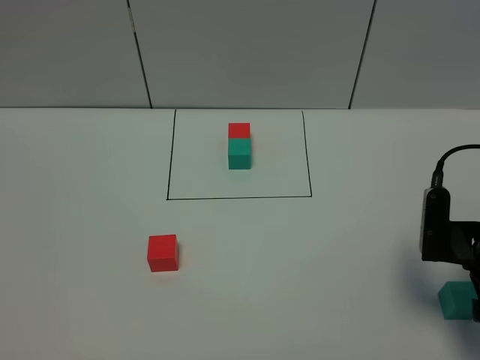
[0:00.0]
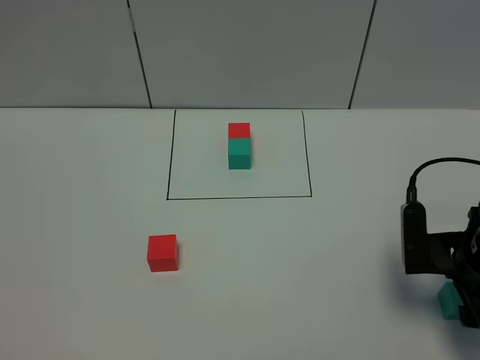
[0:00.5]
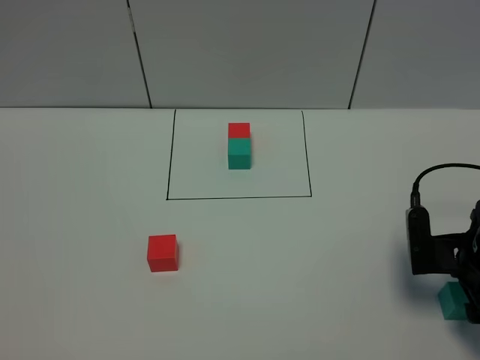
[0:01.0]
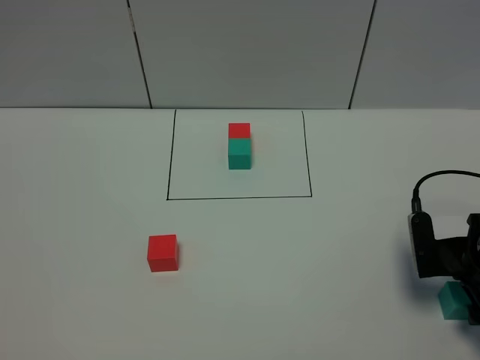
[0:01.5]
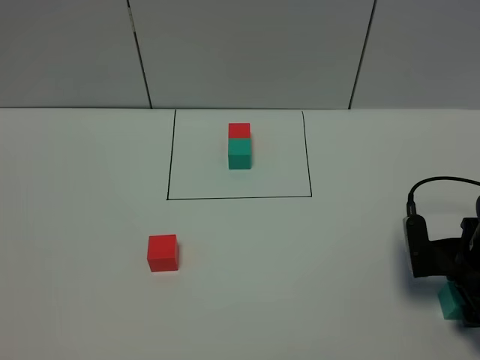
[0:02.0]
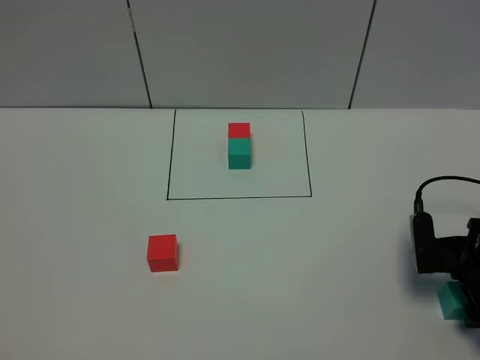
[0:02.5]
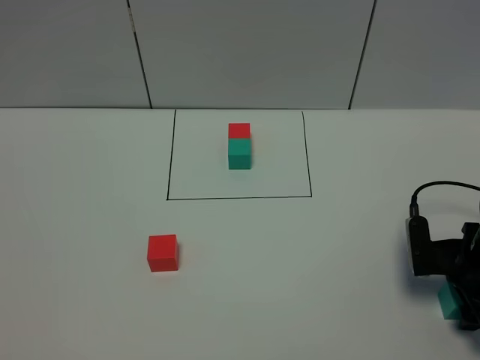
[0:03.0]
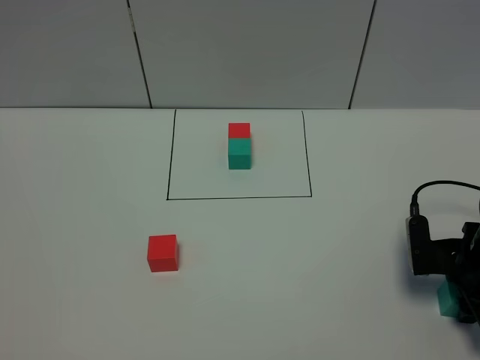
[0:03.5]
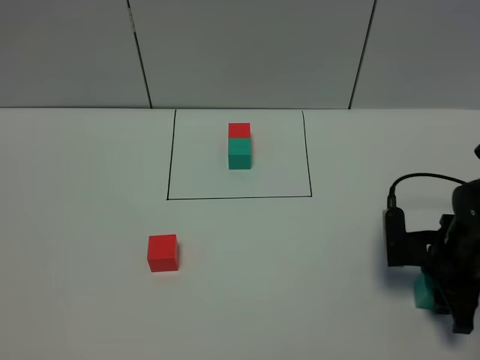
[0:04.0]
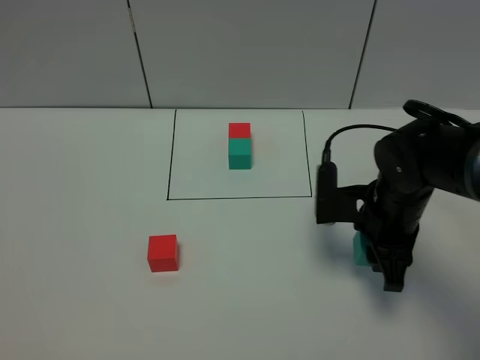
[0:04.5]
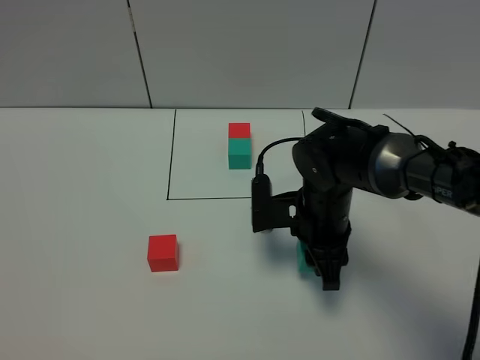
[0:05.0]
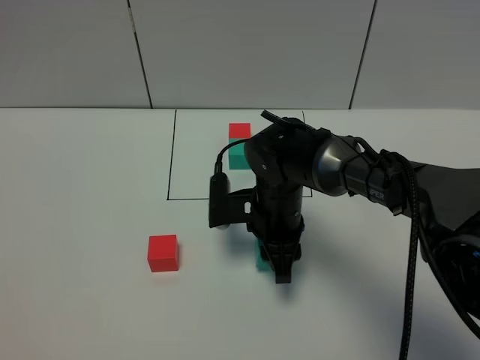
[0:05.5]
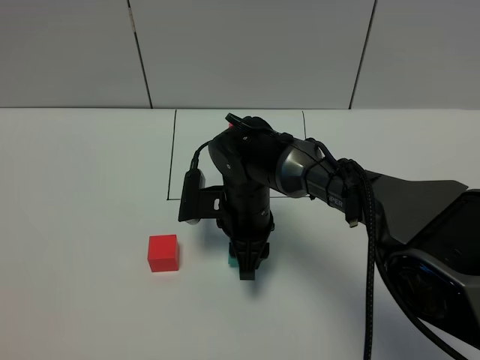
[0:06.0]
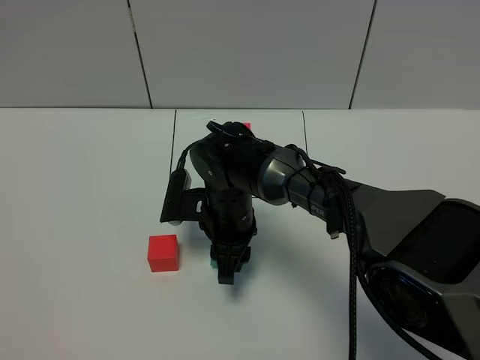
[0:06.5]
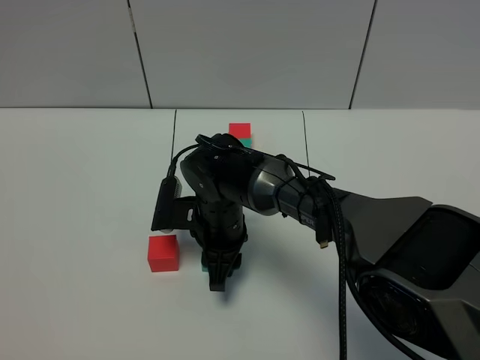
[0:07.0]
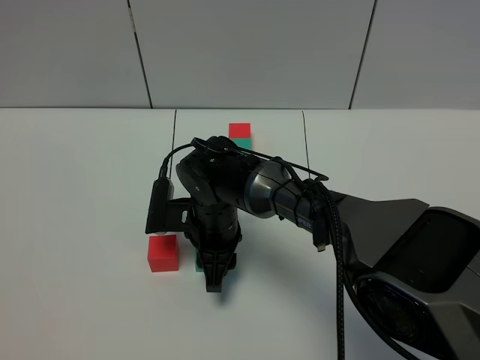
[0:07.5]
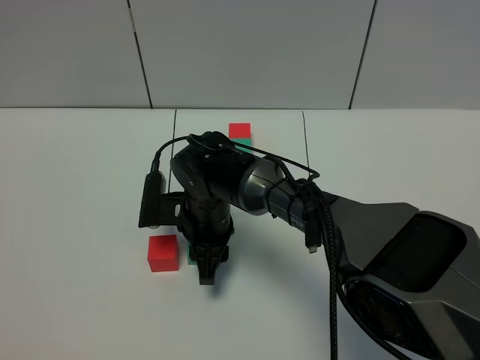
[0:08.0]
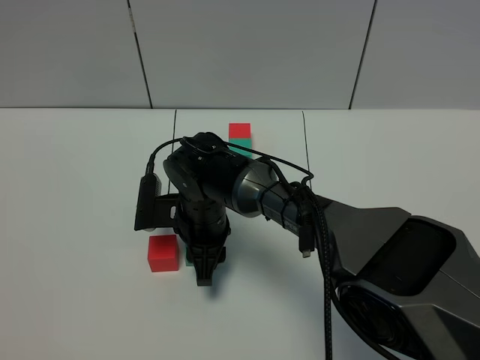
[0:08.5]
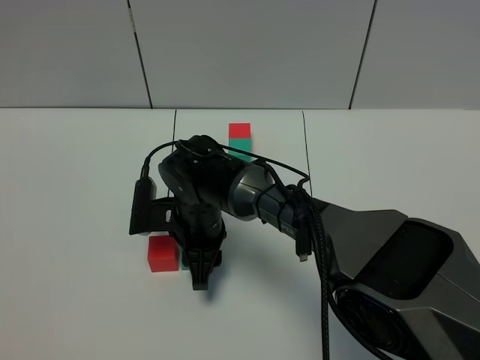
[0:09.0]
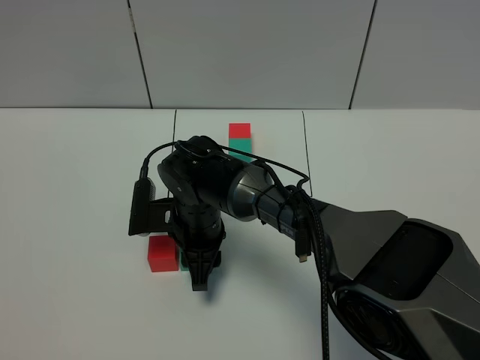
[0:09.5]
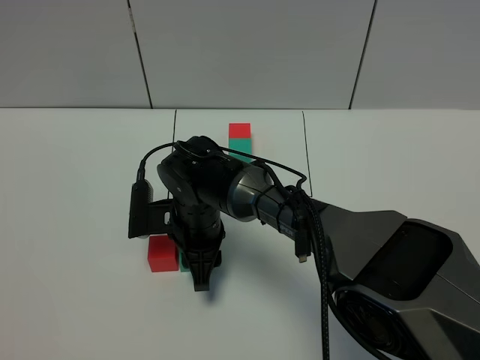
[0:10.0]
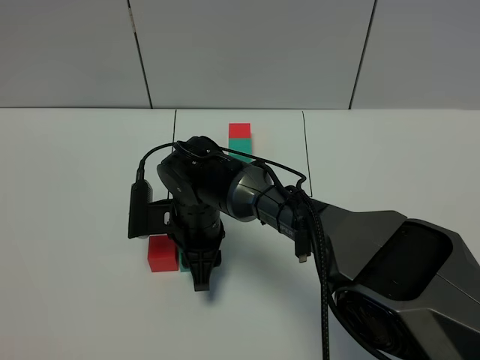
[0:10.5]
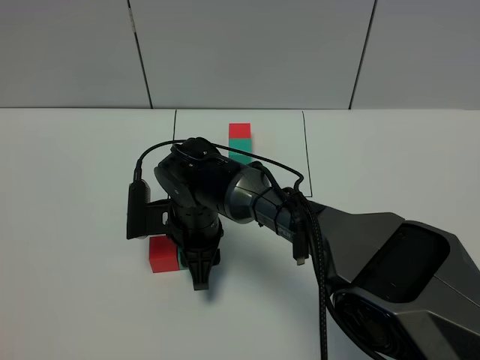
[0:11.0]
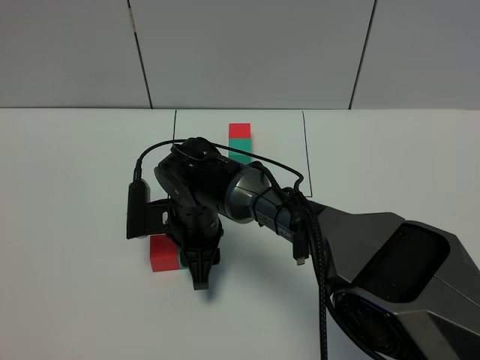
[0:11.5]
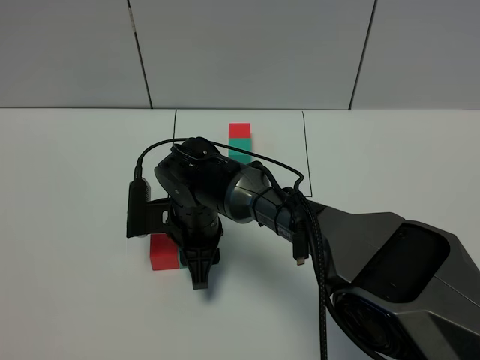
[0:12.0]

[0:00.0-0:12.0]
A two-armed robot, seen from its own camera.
Task of the whole recording: According to the building block template in front, assemble the scattered blocks together.
0:00.0 to 0:02.0: The right gripper shifts roughly 10 cm downward.
0:02.0 to 0:04.0: The right gripper closes.
0:04.0 to 0:06.0: The right gripper heads to the left, covering some 25 cm.
0:06.0 to 0:08.0: The right gripper moves to the left, roughly 5 cm.
0:08.0 to 0:10.0: The grippers make only small movements.
0:10.0 to 0:12.0: The two grippers keep their place.

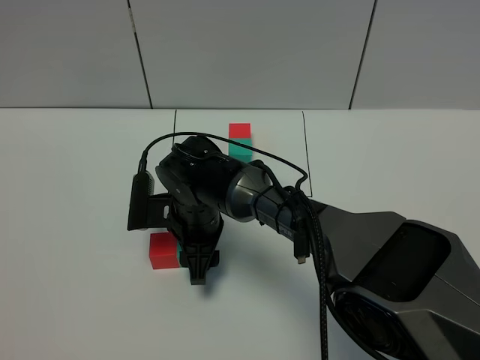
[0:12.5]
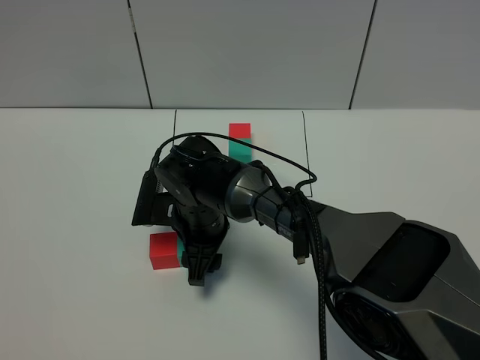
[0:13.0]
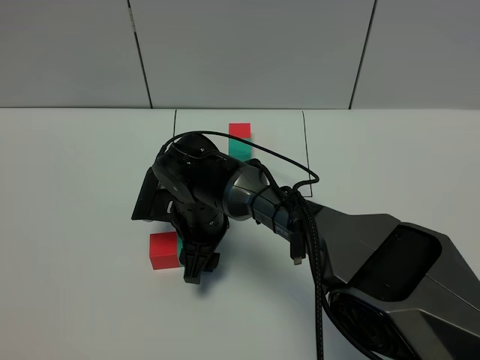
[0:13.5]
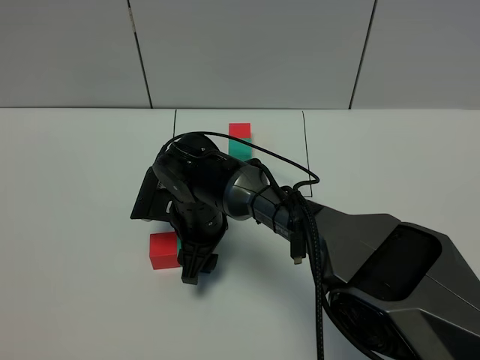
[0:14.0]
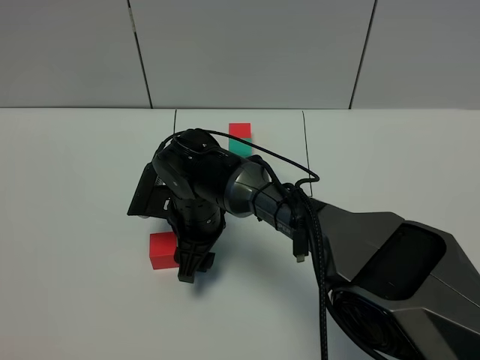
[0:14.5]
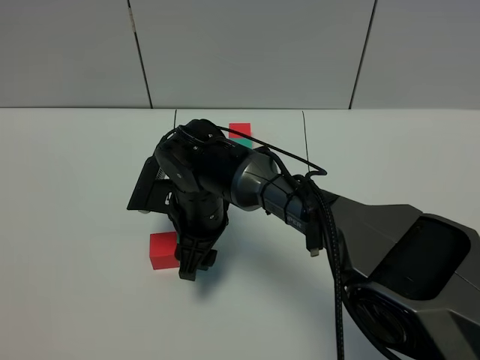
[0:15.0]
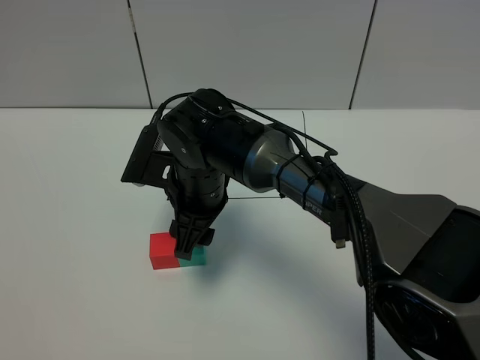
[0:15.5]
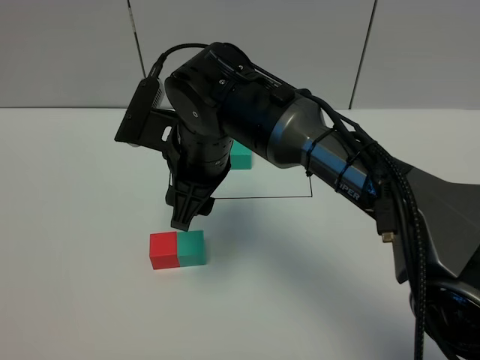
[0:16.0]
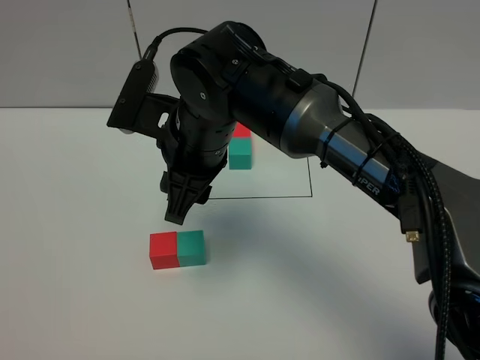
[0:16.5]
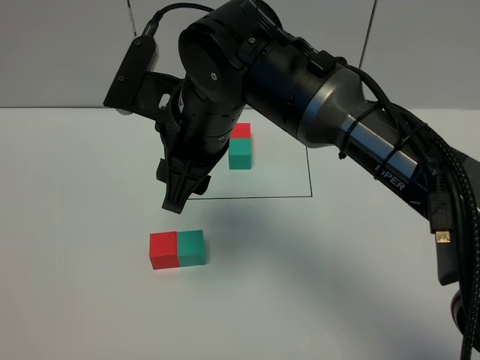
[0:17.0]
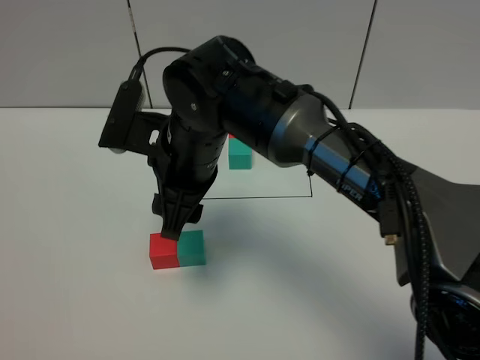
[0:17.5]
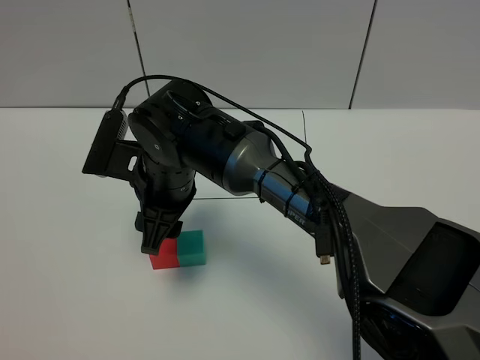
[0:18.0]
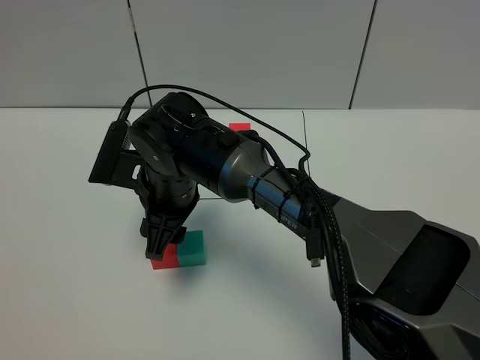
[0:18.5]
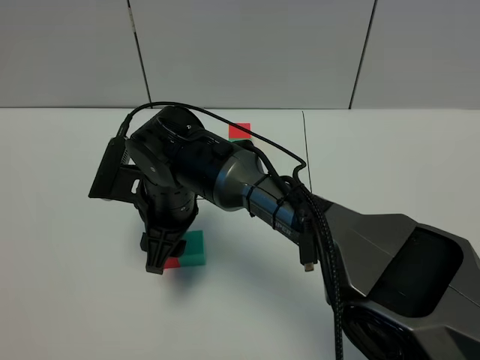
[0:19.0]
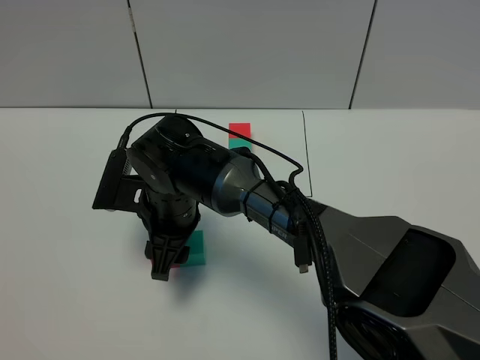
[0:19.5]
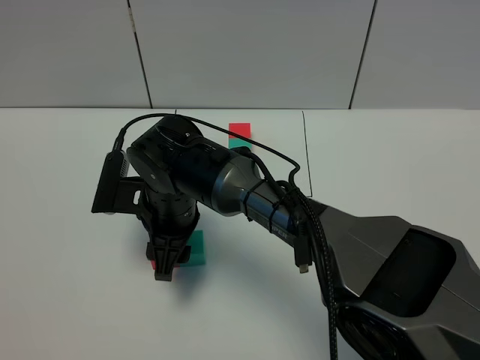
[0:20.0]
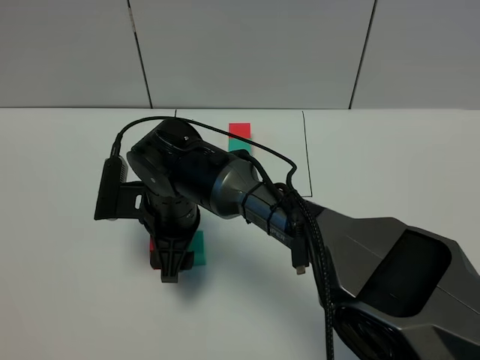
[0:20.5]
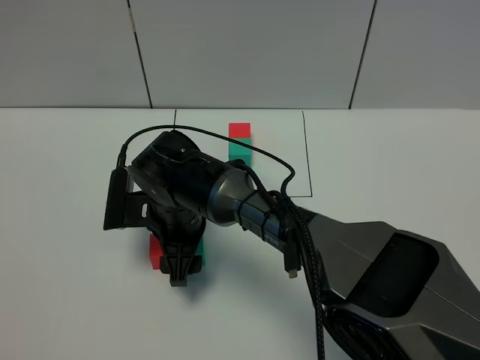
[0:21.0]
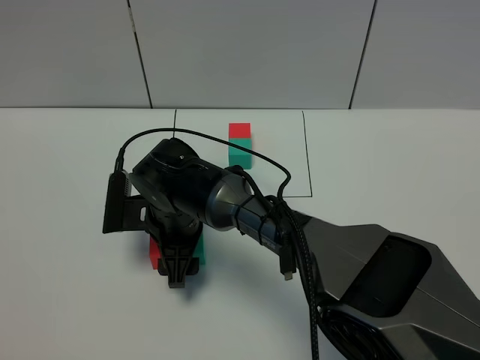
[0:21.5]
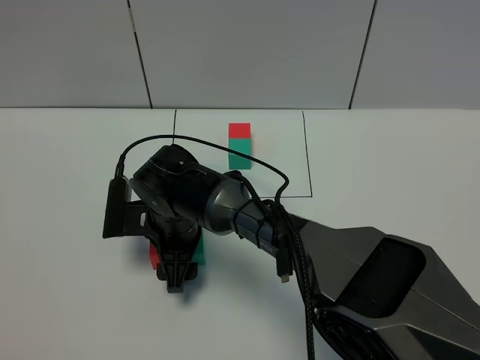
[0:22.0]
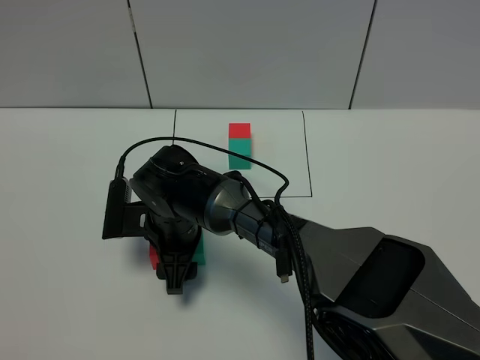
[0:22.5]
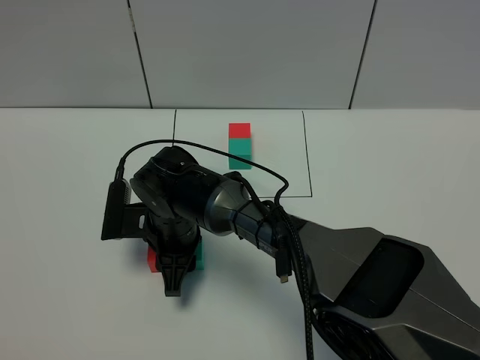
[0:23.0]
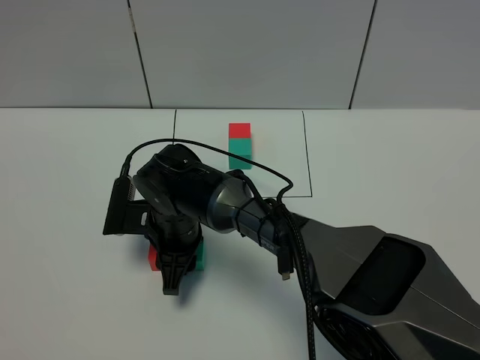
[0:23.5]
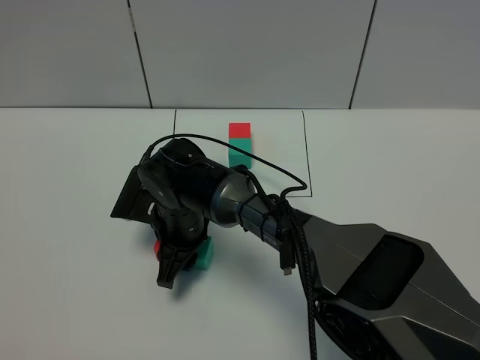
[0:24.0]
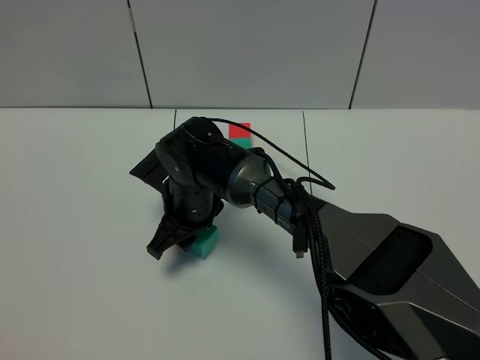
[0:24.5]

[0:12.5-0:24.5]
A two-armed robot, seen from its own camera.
Task of the whole recording: According to the building block template in front, assemble the scattered blocks together.
Step, 0:12.5 to 0:14.5: Put the green cube on the right of the red cube.
0:12.5 to 0:14.5: The grippers stay close to where they were, moving slightly.
0:14.5 to 0:16.5: The right gripper goes roughly 15 cm upward, and closes its fingers.
0:16.5 to 0:18.5: The right gripper travels downward by about 10 cm.
0:18.5 to 0:20.5: The right gripper opens.
0:20.5 to 0:22.5: The grippers make only small movements.
0:22.5 to 0:24.5: The right gripper closes up.

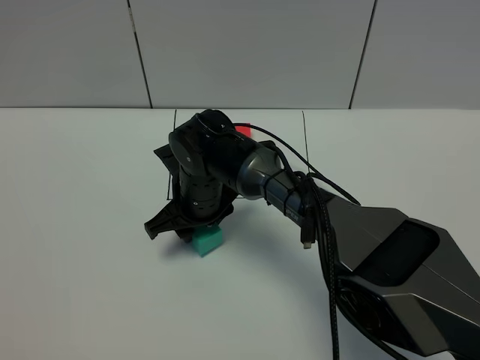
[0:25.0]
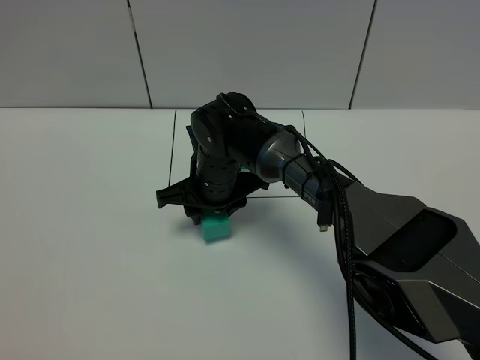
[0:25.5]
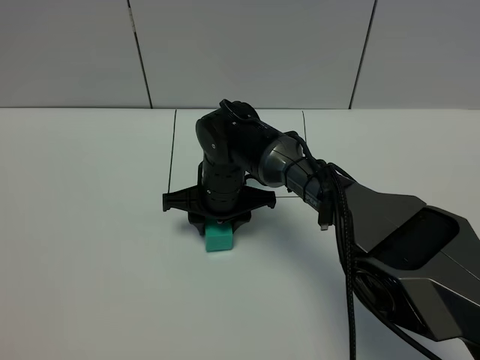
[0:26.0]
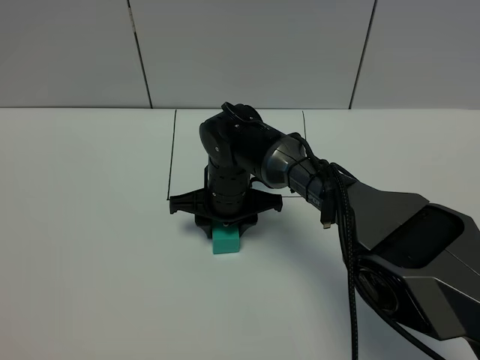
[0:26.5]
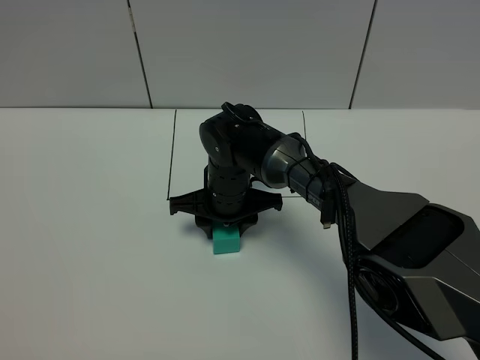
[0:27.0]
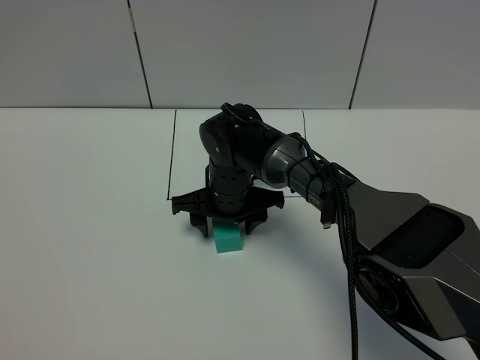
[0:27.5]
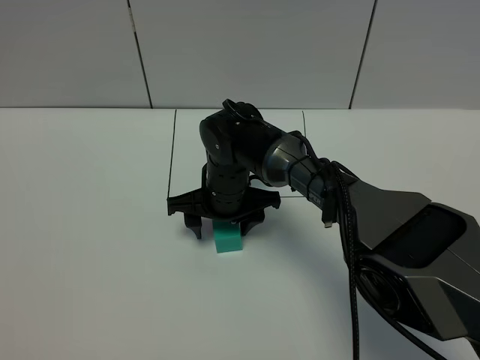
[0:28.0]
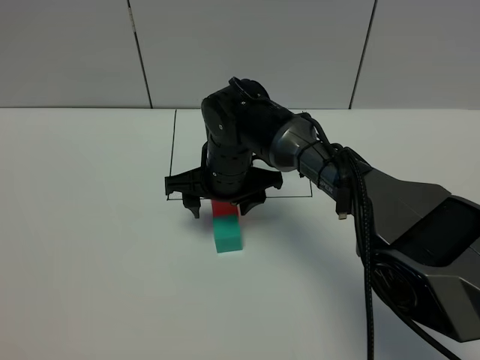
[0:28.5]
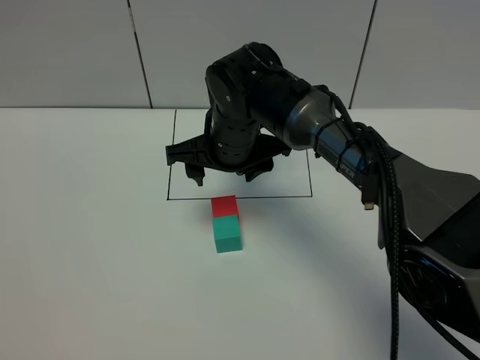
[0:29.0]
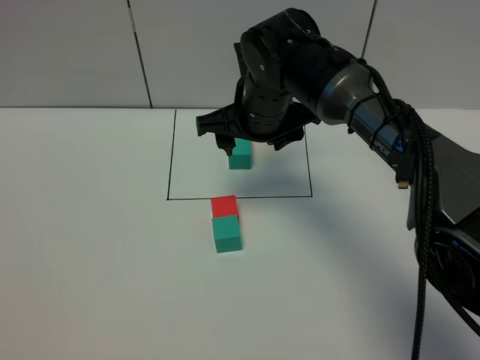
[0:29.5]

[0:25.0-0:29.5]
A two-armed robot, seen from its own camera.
Task of the whole recording: According to the building block template in front, assemble the scattered blocks together.
Step, 0:25.0 to 0:27.5: Adjust the pose of the building blocks.
0:27.0 to 0:29.5: The right gripper moves upward and to the right, roughly 15 cm, and opens its fingers.
